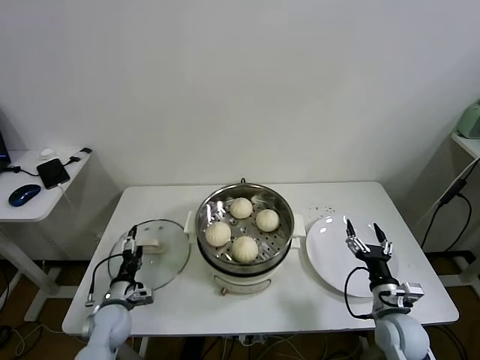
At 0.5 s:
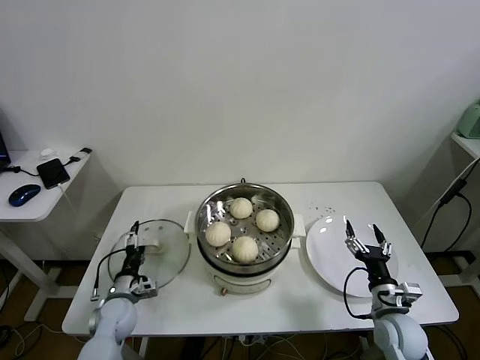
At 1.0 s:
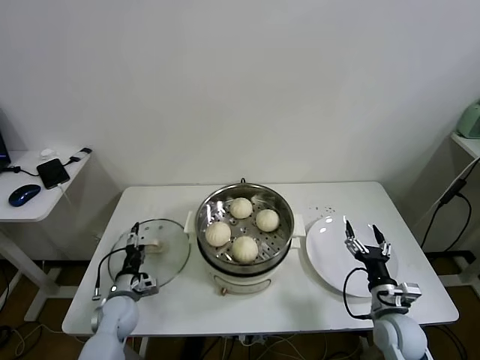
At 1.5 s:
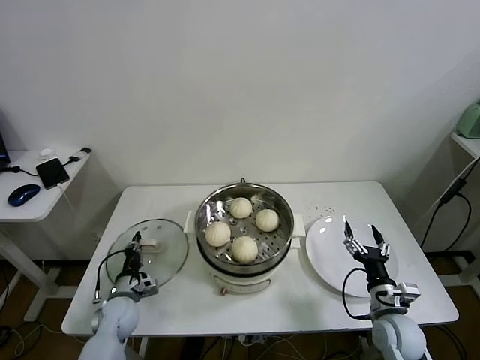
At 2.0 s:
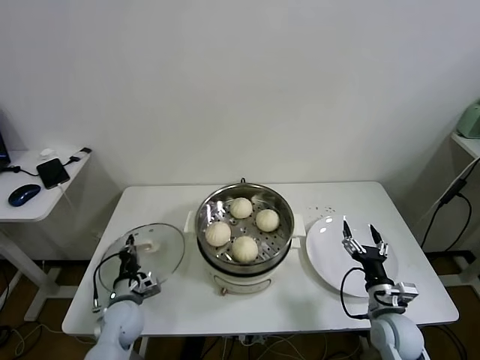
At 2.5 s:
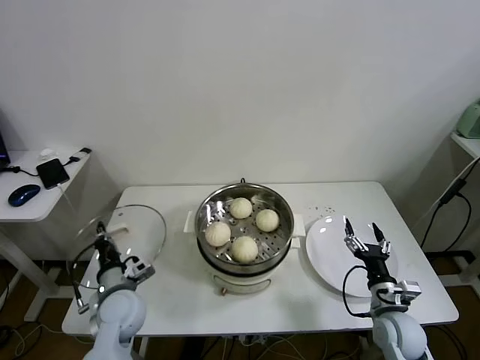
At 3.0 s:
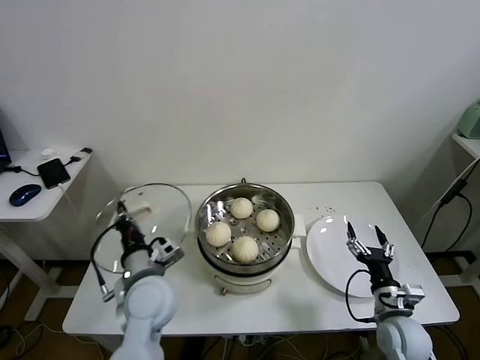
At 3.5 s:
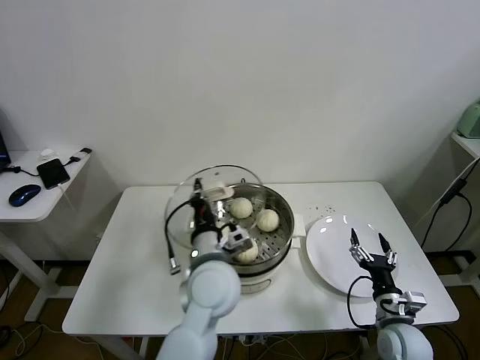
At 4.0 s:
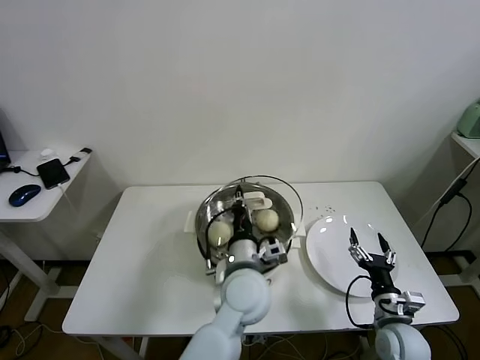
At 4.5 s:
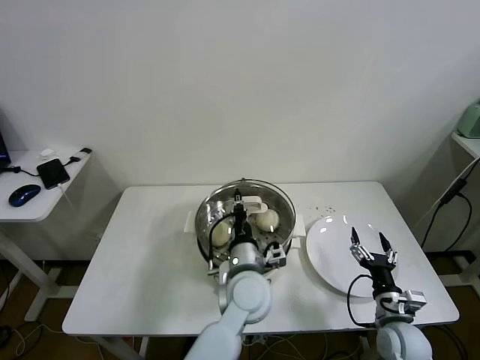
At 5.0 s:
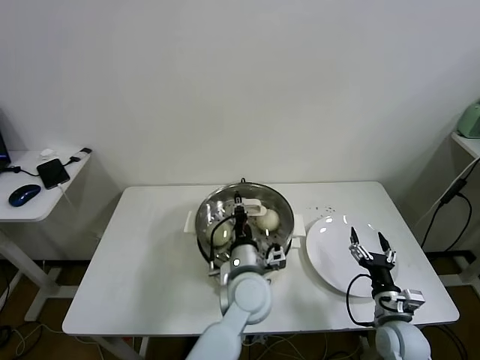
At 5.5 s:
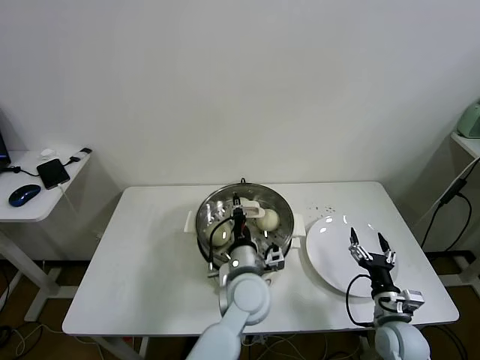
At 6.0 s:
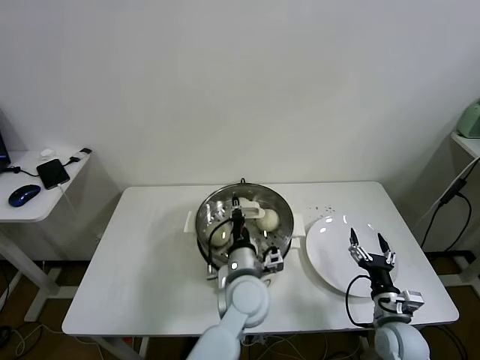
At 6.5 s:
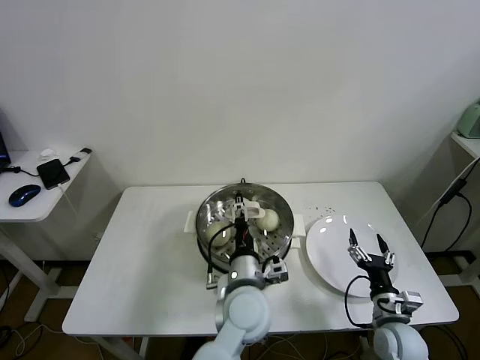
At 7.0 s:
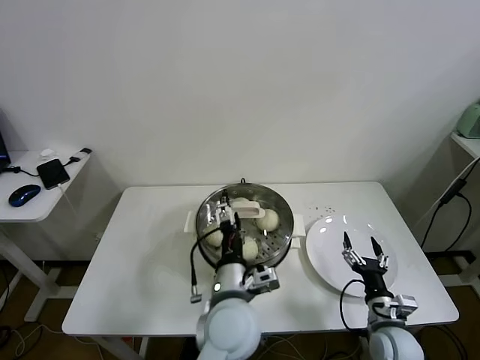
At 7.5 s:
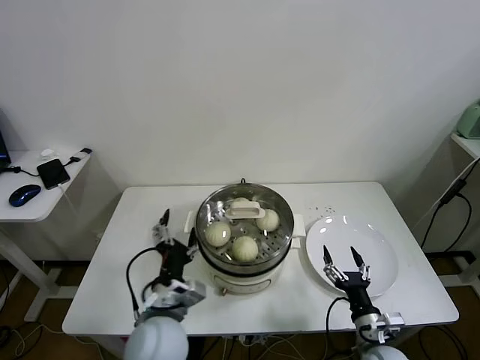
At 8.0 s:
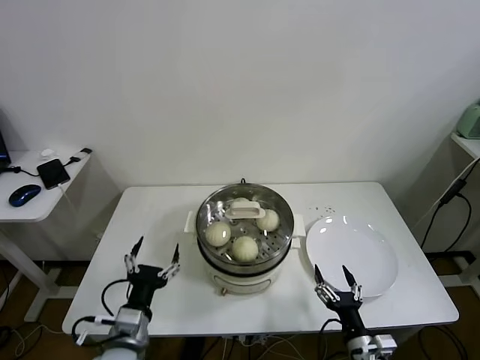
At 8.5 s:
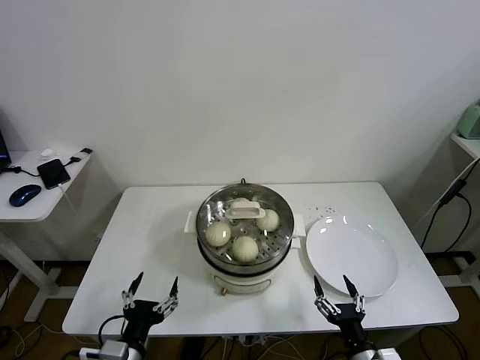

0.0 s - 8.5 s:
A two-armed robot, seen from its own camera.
Task of the whole recording: take steamed baozi put them in steamer.
Step, 2.0 s - 6.0 s: Place the pot lid on the steamer with left gripper.
0.0 s - 2.0 s: The left gripper closes.
2.0 s - 4.0 s: The left gripper travels to the right and upward by roughly 35 cm.
4.0 s - 6.5 s: The left gripper opens its fingers.
6.5 s - 8.5 s: The right gripper shifts roughly 15 cm backward and to the left; the left gripper heads to the left and backward, covering approximately 30 cm.

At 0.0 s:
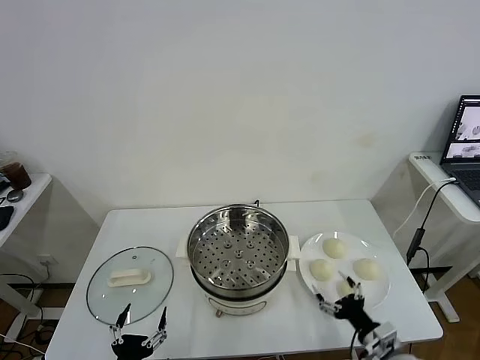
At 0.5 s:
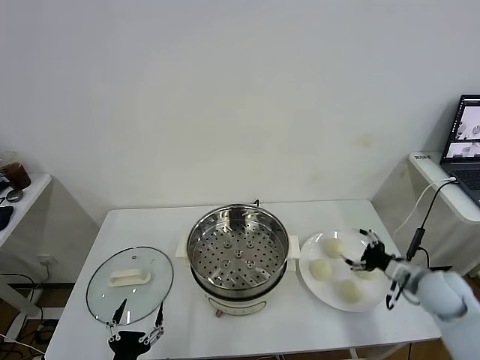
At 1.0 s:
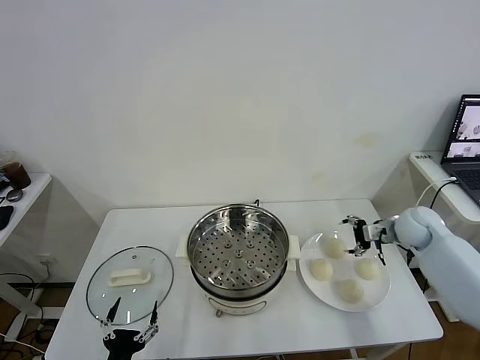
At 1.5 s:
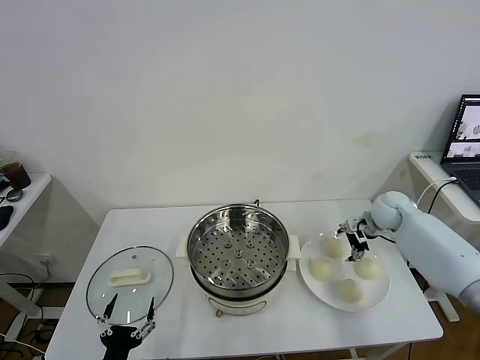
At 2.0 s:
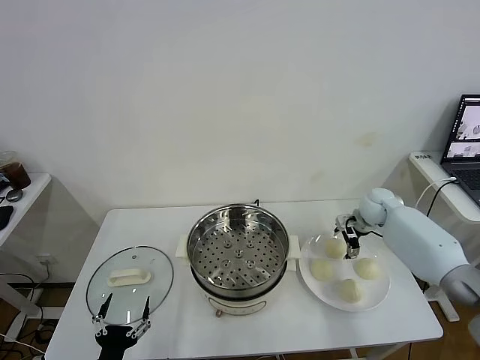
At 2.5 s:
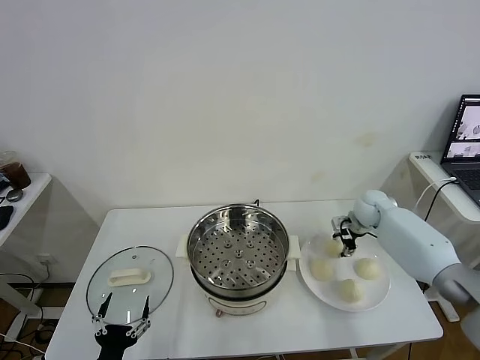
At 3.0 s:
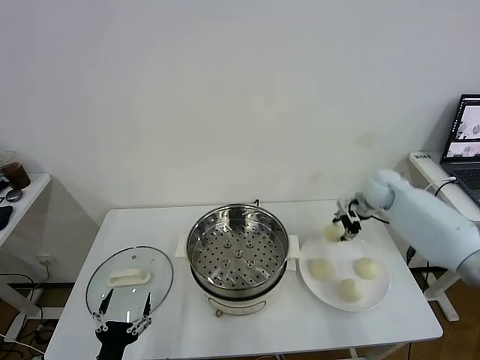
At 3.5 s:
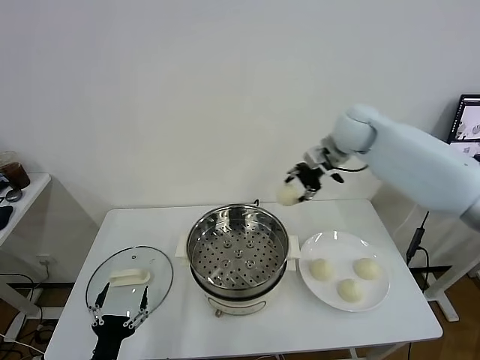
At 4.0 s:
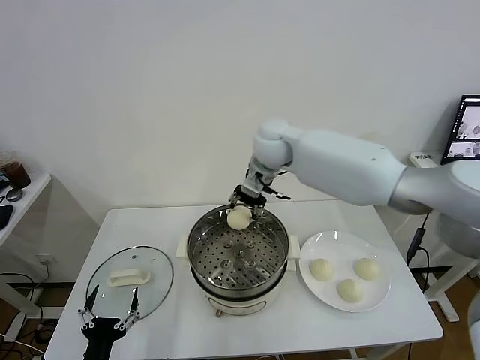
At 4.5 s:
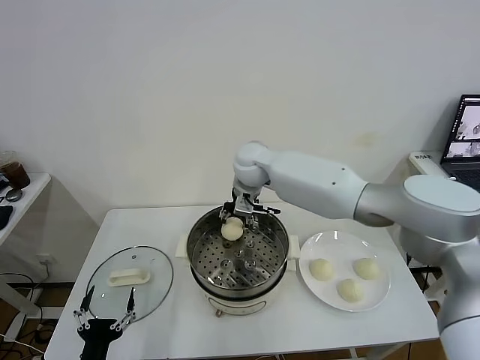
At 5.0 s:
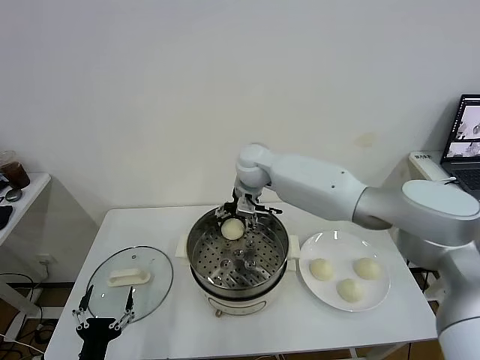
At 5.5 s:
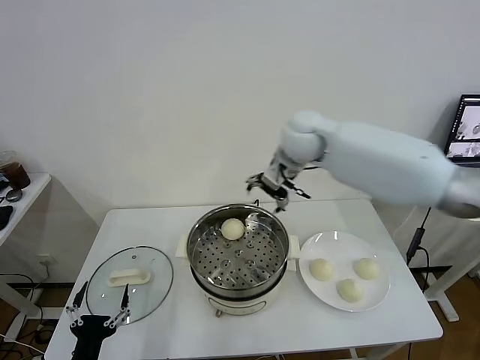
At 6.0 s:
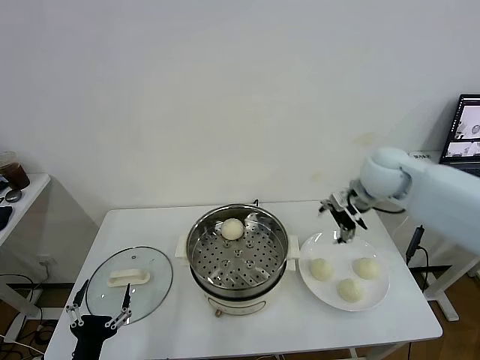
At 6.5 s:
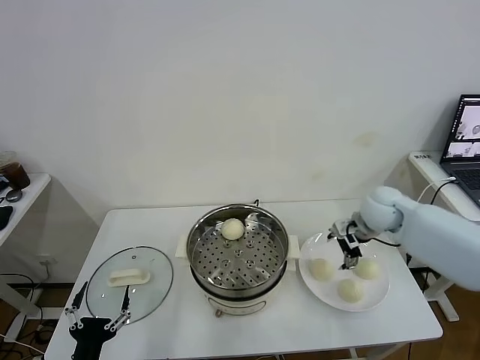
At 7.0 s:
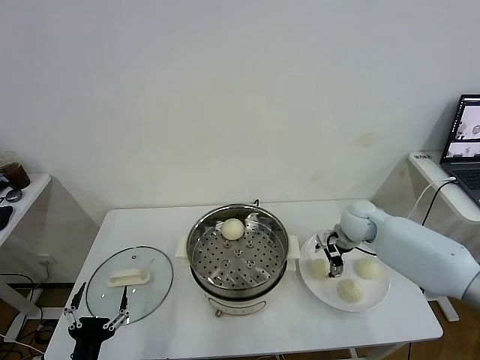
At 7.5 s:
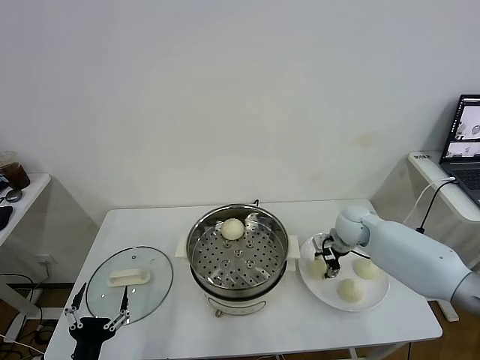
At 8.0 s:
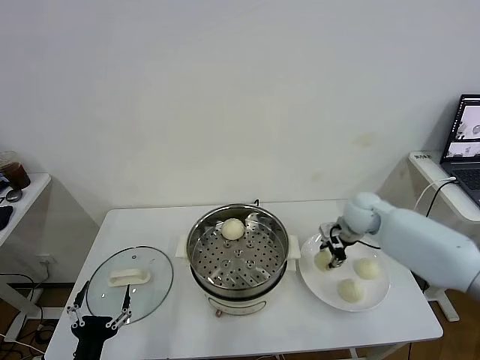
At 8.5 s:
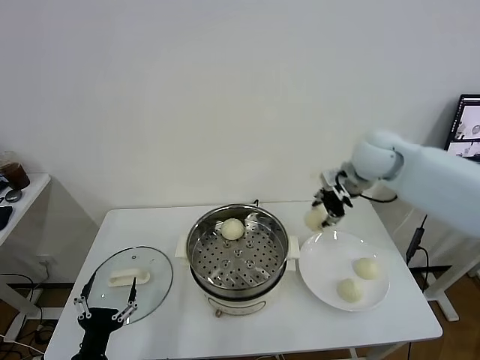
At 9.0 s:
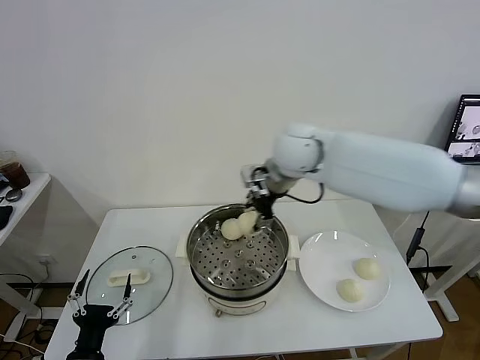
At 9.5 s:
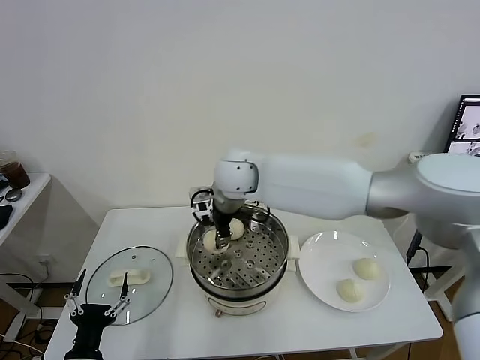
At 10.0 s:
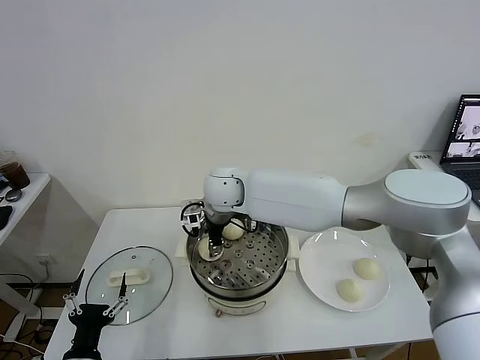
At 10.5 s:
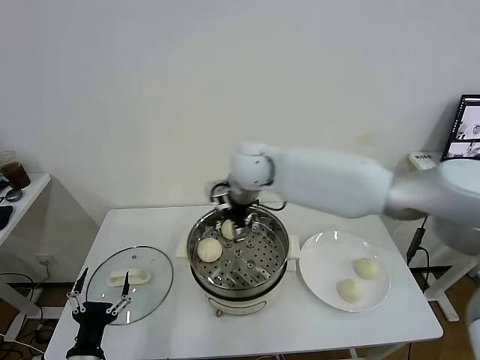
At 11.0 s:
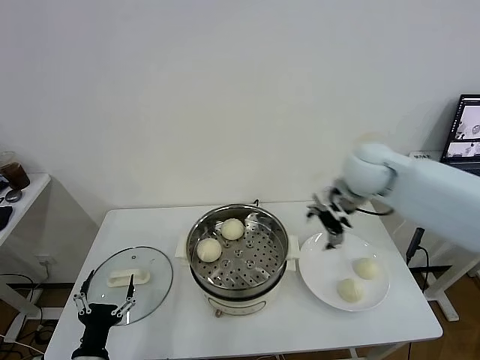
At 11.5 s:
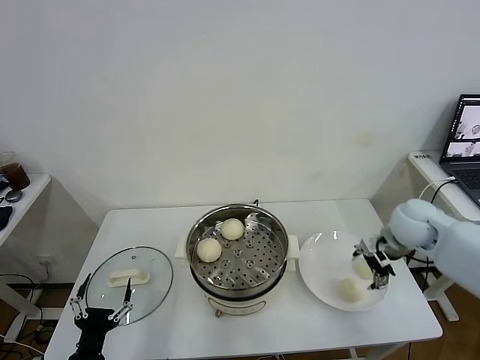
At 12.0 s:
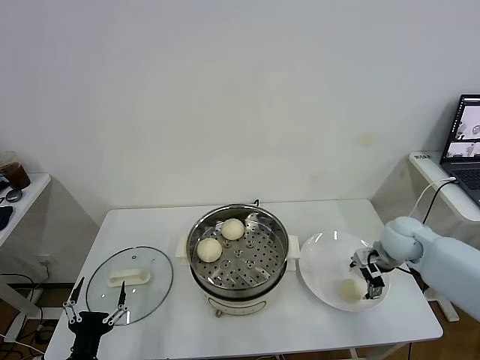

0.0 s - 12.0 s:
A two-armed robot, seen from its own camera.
Task of the whole recording: take steamed baozi put them in steamer.
Step, 0.0 s - 2.5 s: Grasp the baozi in the plate with right gripper.
Step, 3.0 s - 5.0 s: Place the baozi on the steamer with right gripper.
Step, 5.5 s - 7.5 s: Grasp the baozi in the plate with right gripper.
Step, 8.0 s - 10.0 s: Place the baozi on the steamer with right gripper.
2.0 s - 4.0 s: The right gripper shifts roughly 35 cm to the left and upward, and closes up.
4.0 s - 6.0 s: The right gripper heads to the right, covering some 25 cm, and opens.
6.0 s - 8.0 s: The right gripper moves downward, roughly 10 cm, and closes its fingers.
8.0 s - 10.0 s: The right gripper is displaced to the left by some 35 cm, and opens its fingers.
10.0 s - 12.0 s: The right gripper is displaced to the right by about 40 cm, and opens.

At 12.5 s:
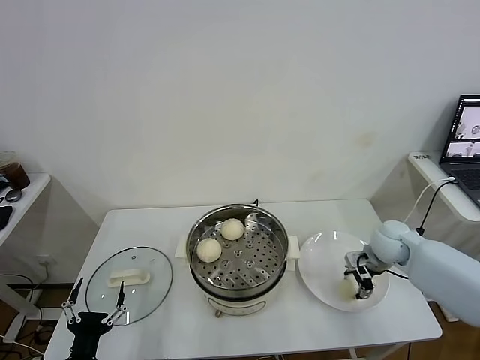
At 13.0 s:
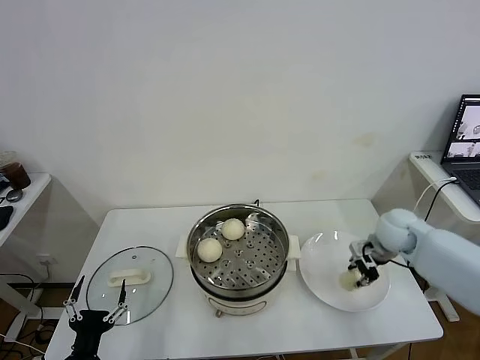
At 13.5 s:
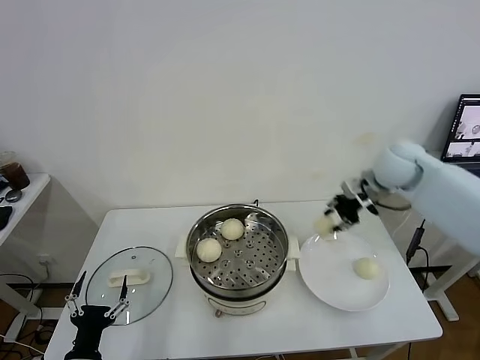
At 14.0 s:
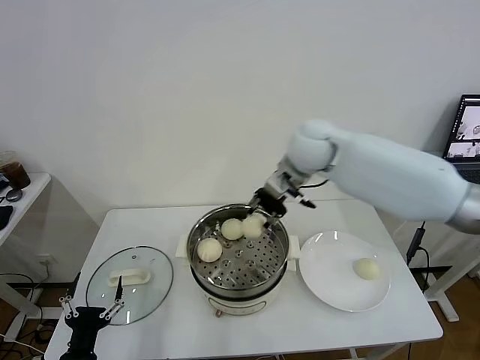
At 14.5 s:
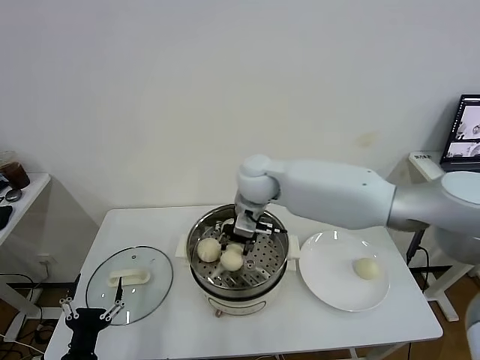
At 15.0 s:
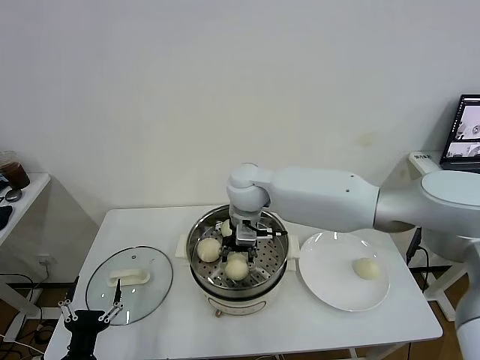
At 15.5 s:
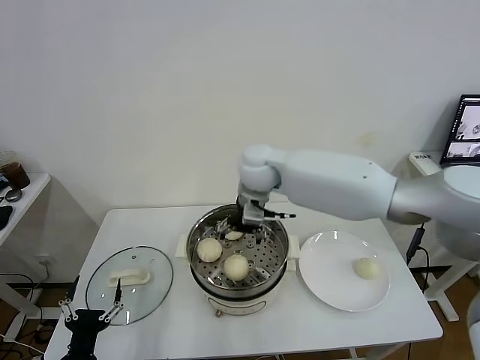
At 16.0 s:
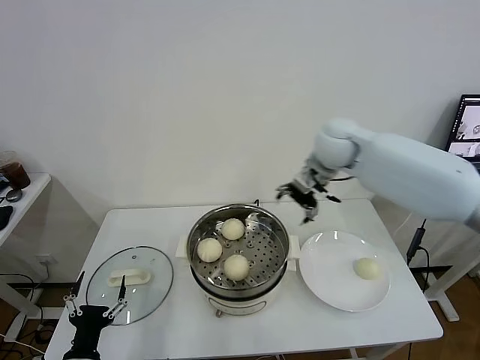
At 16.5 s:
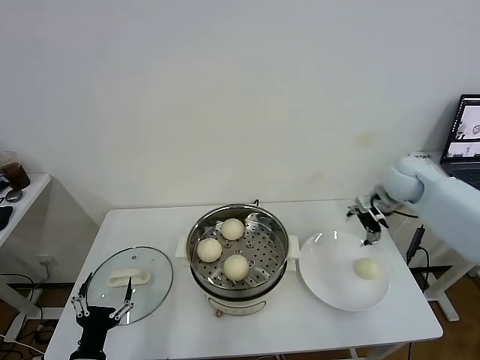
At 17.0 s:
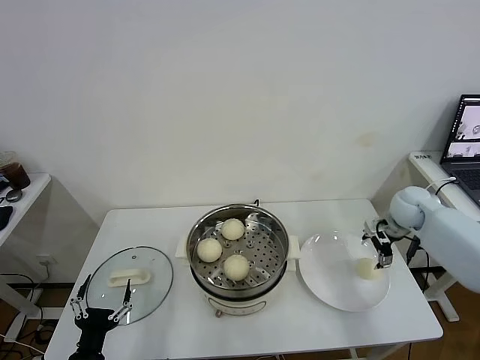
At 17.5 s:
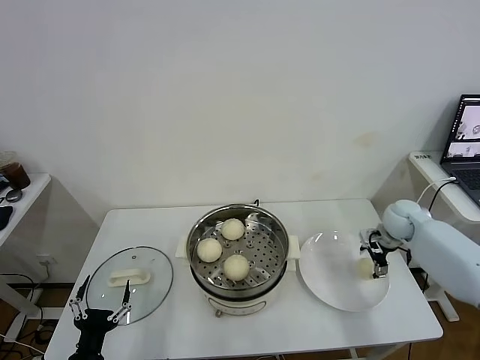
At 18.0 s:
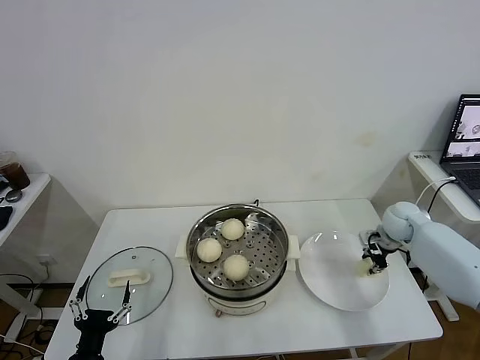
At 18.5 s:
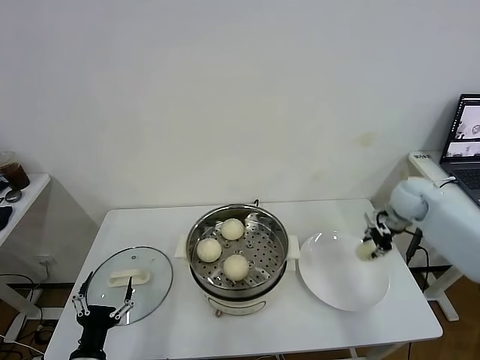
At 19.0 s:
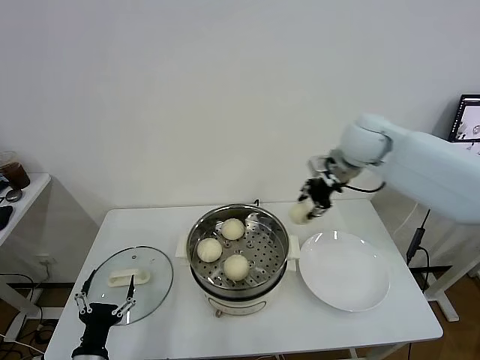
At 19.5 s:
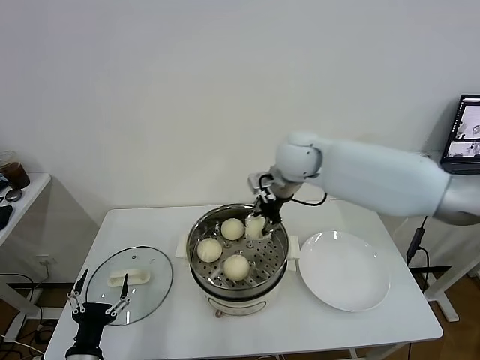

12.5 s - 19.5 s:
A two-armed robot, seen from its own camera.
Task of the whole recording: take steamed baozi put them in steamer.
Step, 13.0 s - 15.0 s: Place the baozi on the steamer with right gripper.
Step, 15.5 s - 18.0 s: Grasp the baozi in the plate with right gripper.
12.5 s - 14.5 s: The right gripper heads to the left and upward, covering about 35 cm.
14.5 s - 16.0 s: The right gripper moves to the right, some 20 cm, and opens.
16.0 s - 17.5 s: The right gripper is displaced downward and to the right by about 30 cm.
17.5 s - 19.5 s: The right gripper heads to the left and upward, covering some 35 cm, and closes up.
